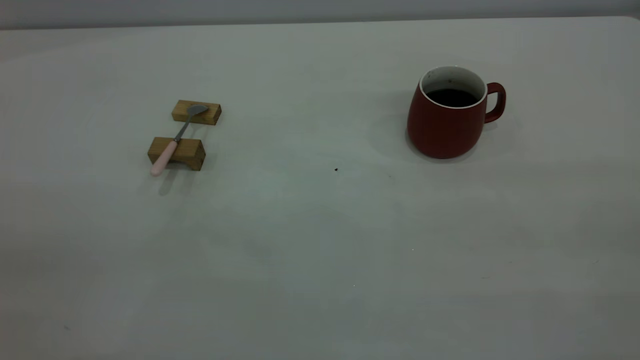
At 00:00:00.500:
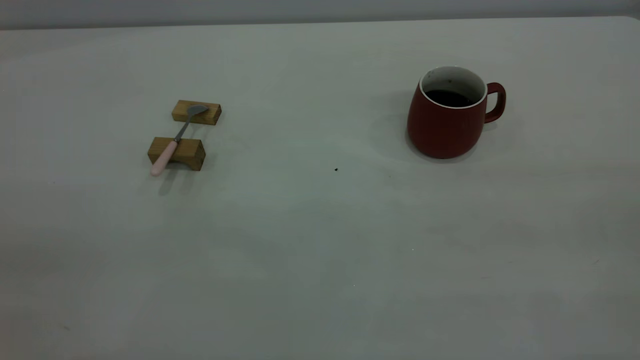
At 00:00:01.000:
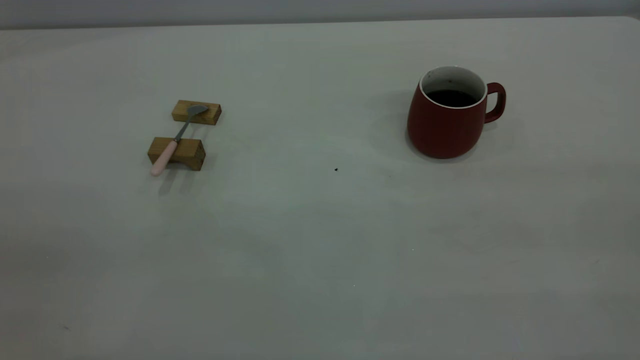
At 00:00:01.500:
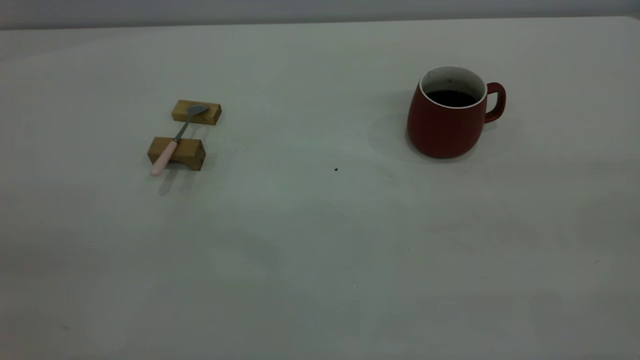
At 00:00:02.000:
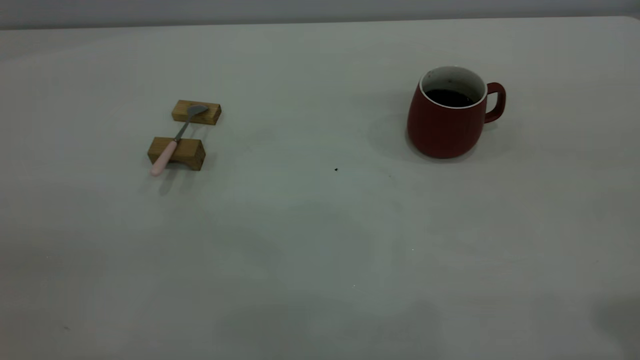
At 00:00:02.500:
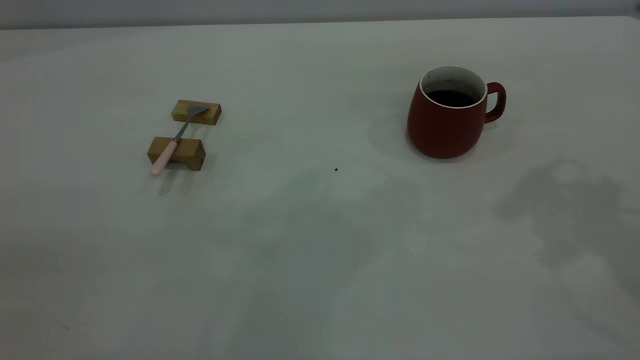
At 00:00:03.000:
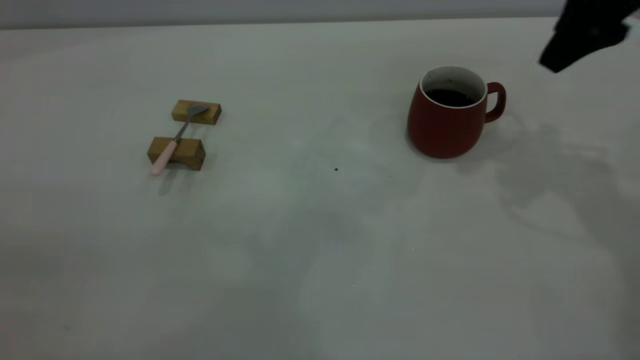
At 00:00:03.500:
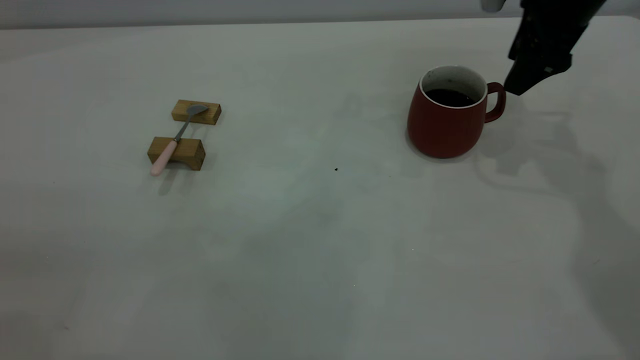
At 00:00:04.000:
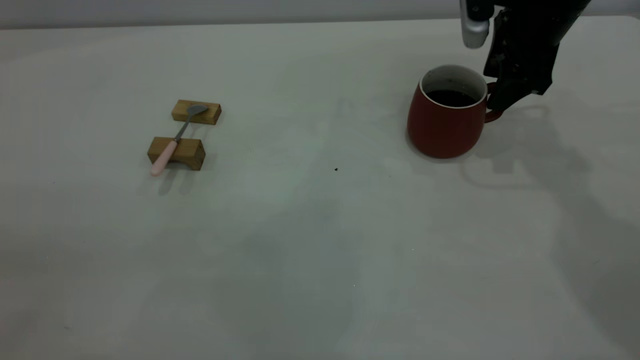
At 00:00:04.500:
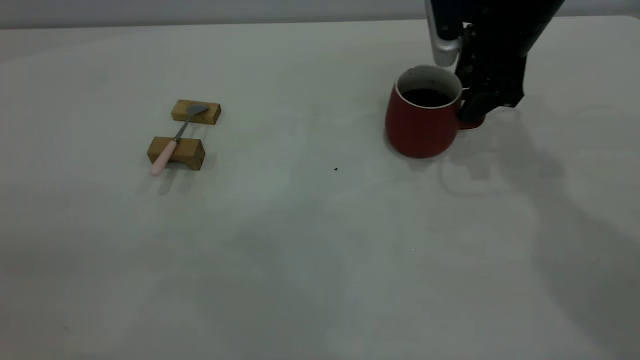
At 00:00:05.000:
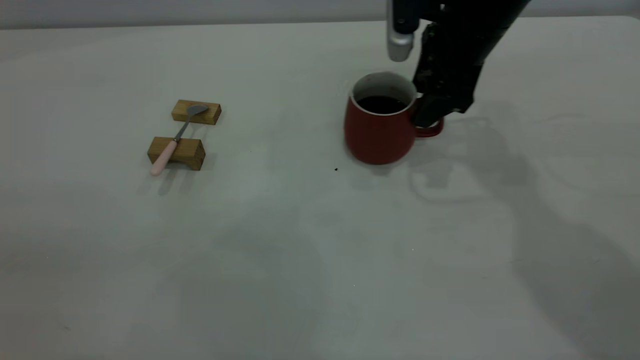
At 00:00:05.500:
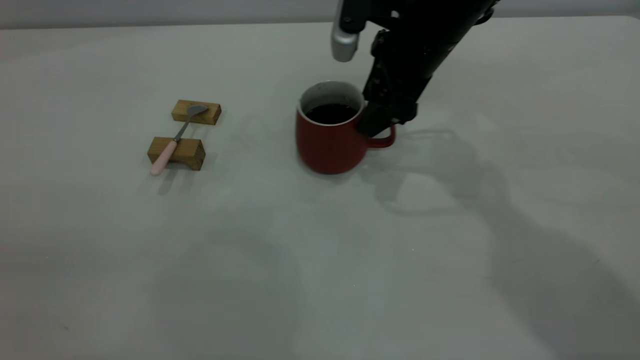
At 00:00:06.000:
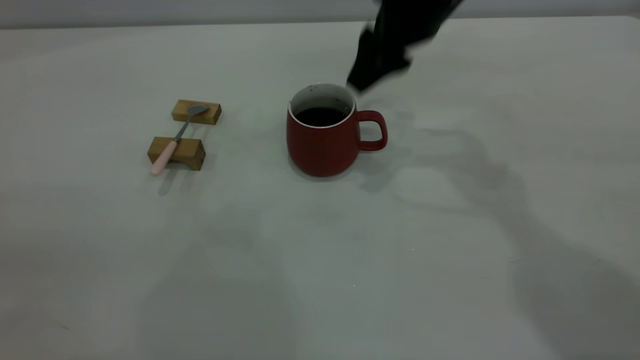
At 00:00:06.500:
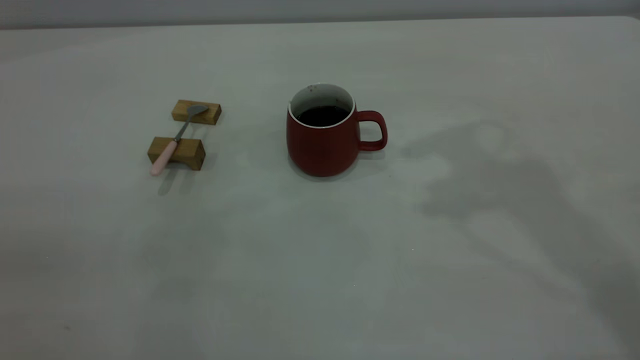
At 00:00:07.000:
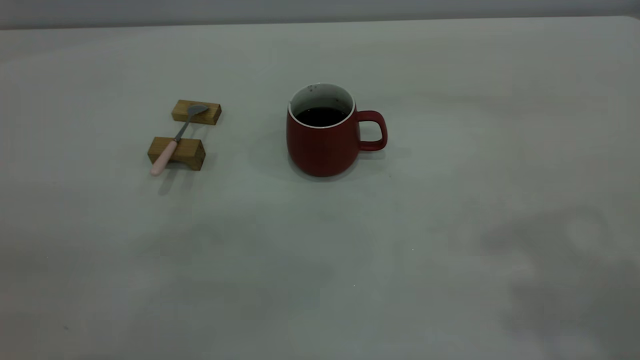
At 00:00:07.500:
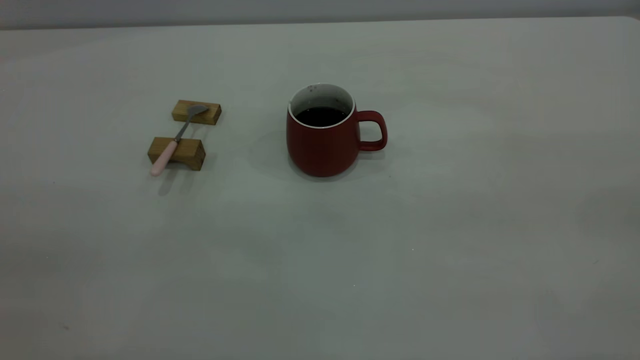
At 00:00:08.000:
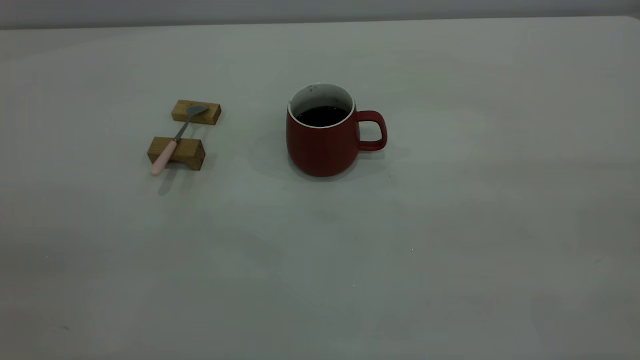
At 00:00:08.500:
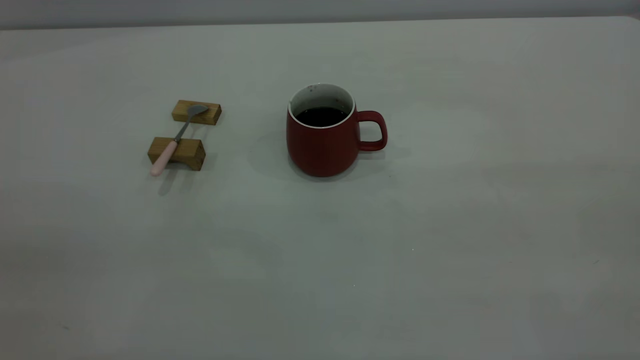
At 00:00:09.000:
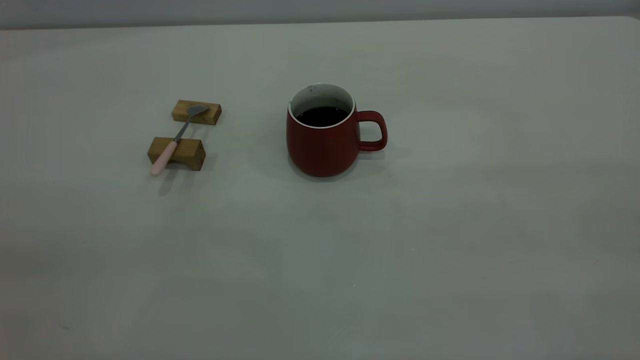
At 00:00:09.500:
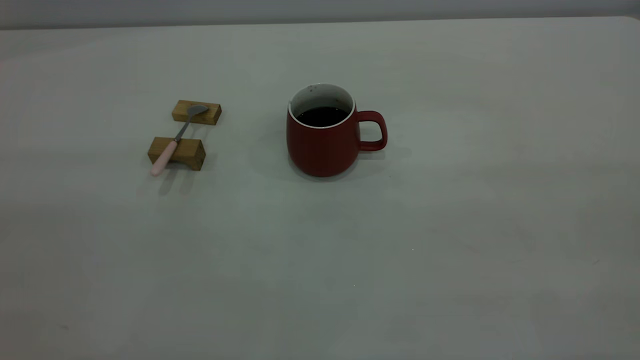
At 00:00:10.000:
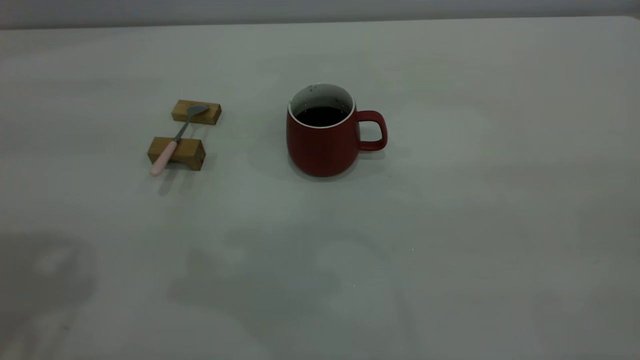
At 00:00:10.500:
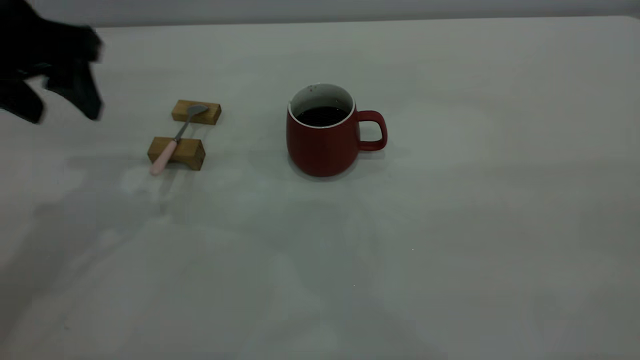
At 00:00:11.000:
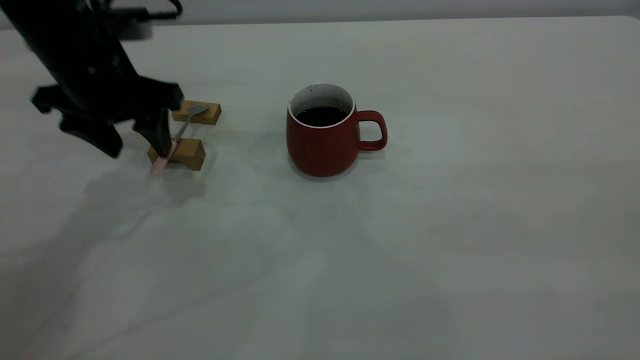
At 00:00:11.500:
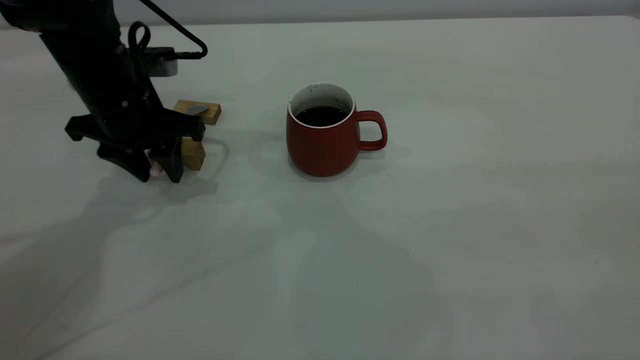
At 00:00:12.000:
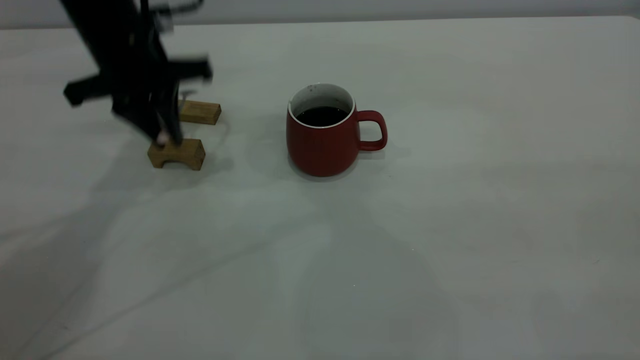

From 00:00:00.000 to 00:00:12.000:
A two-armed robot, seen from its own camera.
Step, from 00:00:00.000 to 00:00:05.500: Move the cup with coffee to the center of view.
From 00:00:02.000 to 00:00:04.000: The right gripper moves forward and downward, roughly 40 cm.
From 00:00:04.000 to 00:00:06.000: The right gripper goes some 15 cm to the left and upward.
From 00:00:06.000 to 00:00:08.000: The right gripper shifts roughly 50 cm backward and to the right.
From 00:00:10.000 to 00:00:12.000: The left gripper travels forward, downward and to the right by approximately 25 cm, and closes up.

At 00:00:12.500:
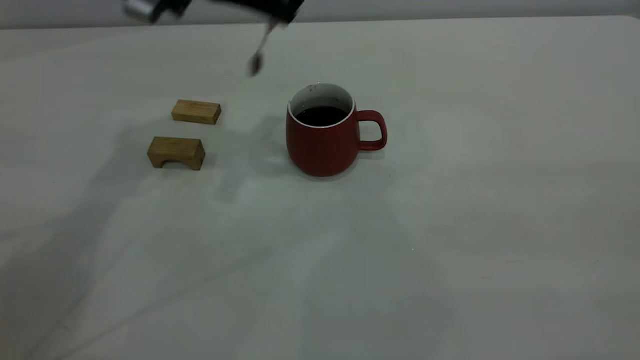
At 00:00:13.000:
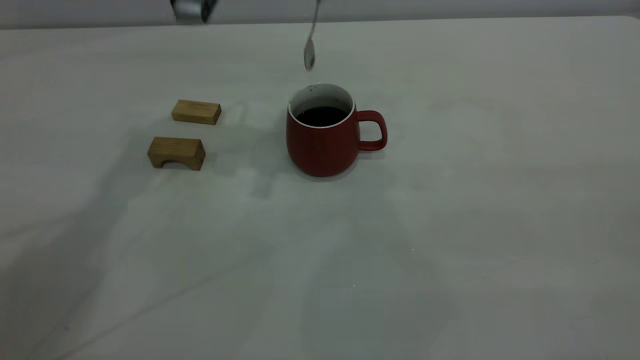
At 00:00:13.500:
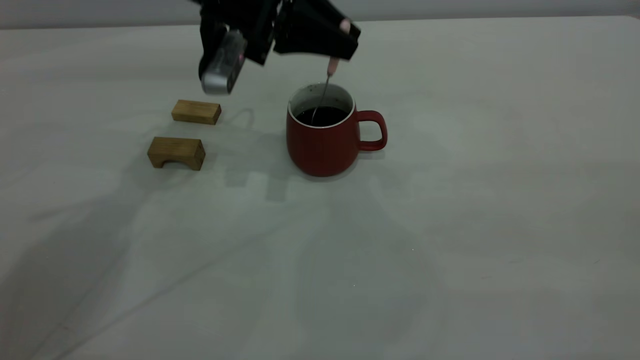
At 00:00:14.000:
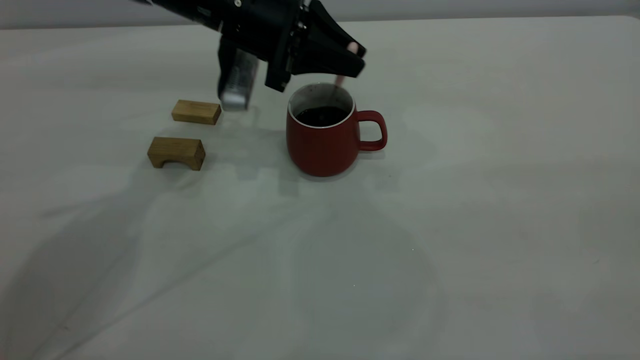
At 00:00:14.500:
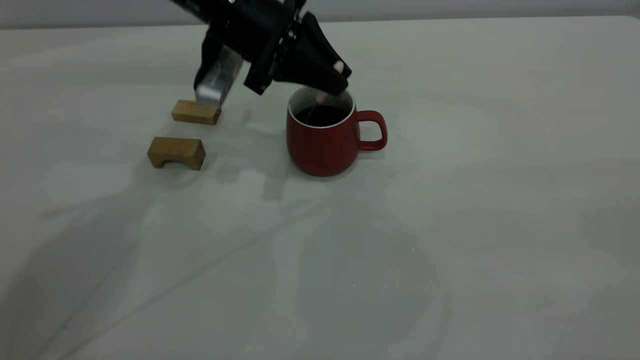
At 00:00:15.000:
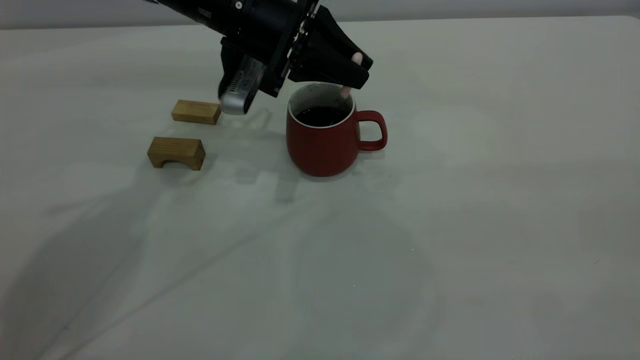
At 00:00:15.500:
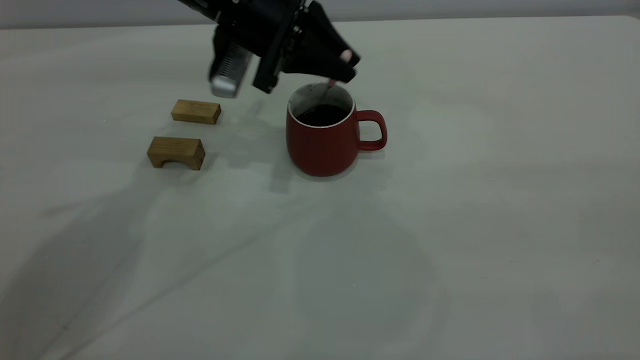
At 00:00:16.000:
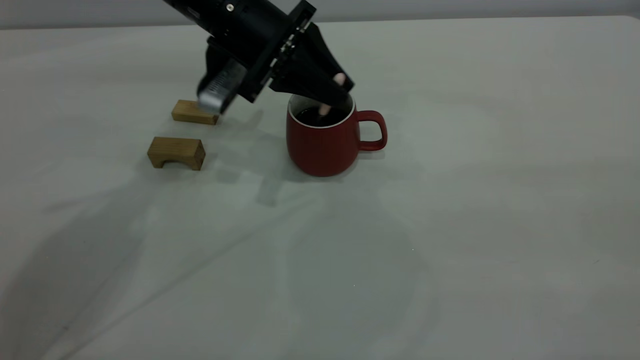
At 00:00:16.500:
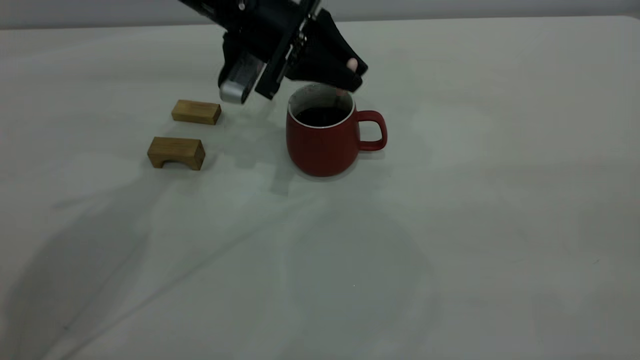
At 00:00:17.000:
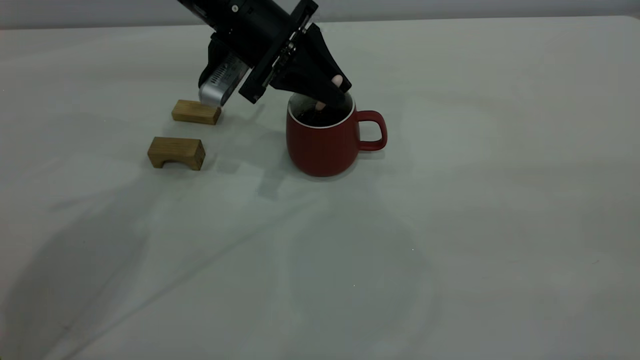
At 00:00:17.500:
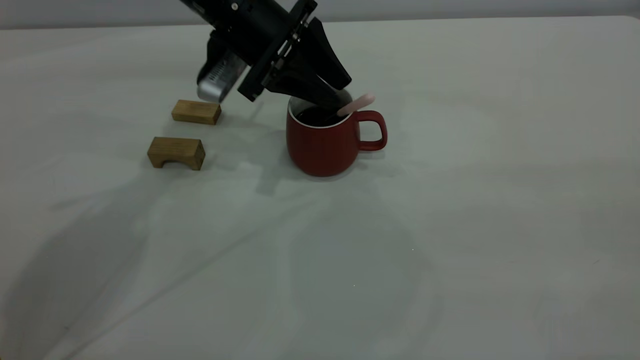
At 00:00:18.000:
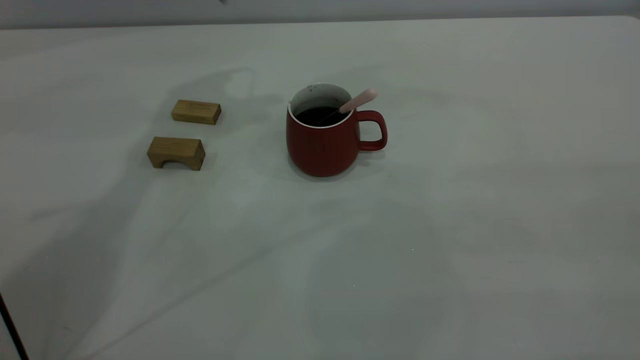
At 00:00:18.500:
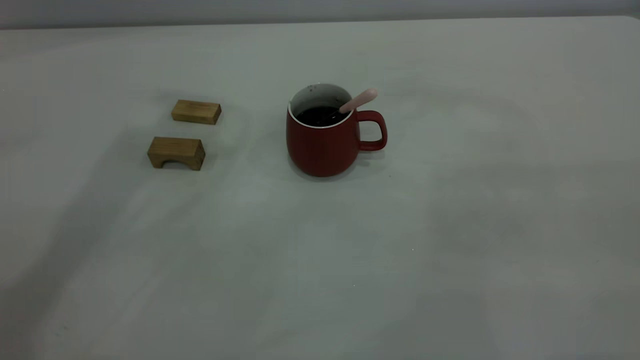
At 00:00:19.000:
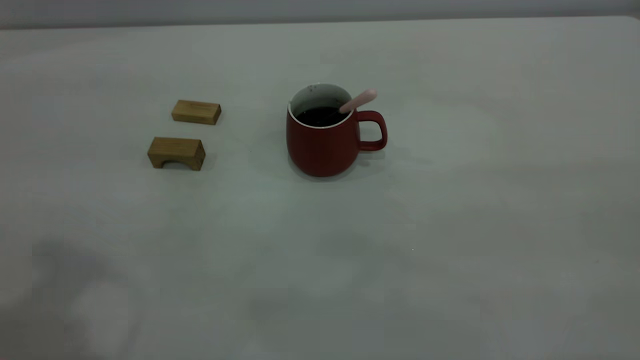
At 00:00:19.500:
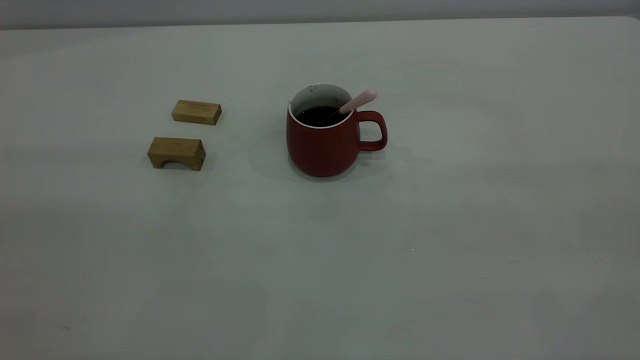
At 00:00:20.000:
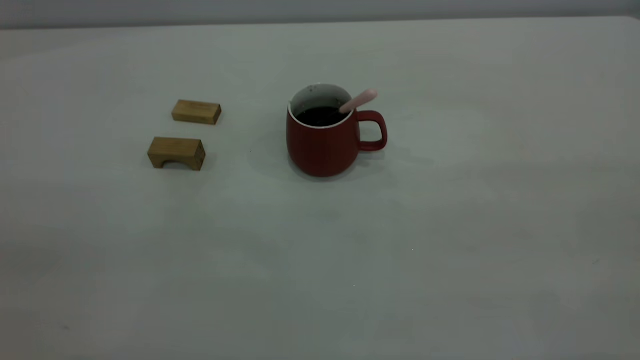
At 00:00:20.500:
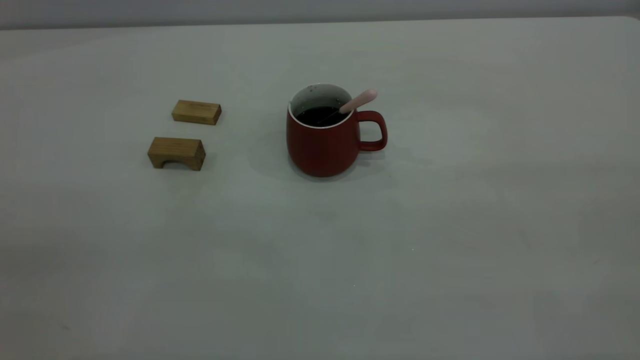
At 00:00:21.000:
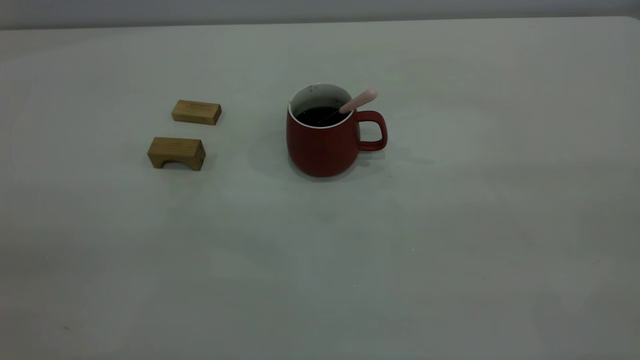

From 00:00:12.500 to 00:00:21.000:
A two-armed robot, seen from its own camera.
Step, from 00:00:12.500 to 00:00:17.500: Stir the coffee in the cup.
From 00:00:12.500 to 00:00:14.500: The left gripper is displaced downward by some 10 cm.
From 00:00:14.500 to 00:00:16.500: The grippers move only a little.
From 00:00:16.500 to 00:00:19.000: The left gripper moves backward, upward and to the left, approximately 40 cm, and opens up.
